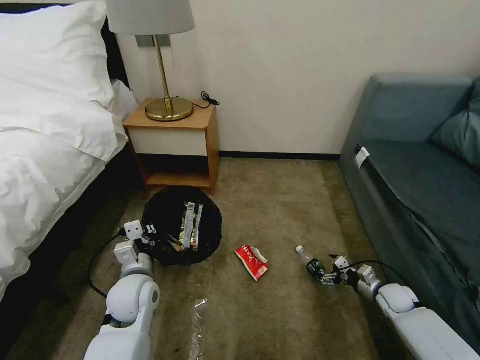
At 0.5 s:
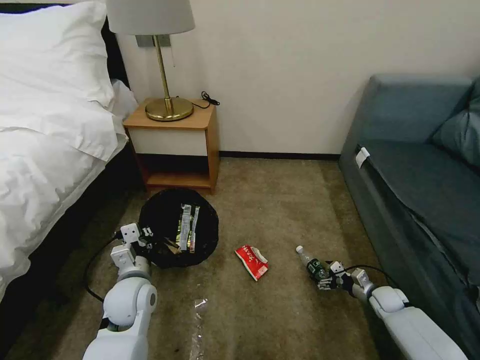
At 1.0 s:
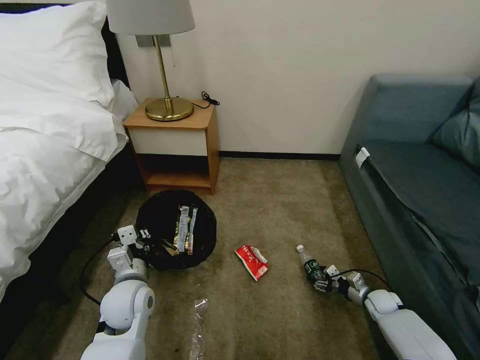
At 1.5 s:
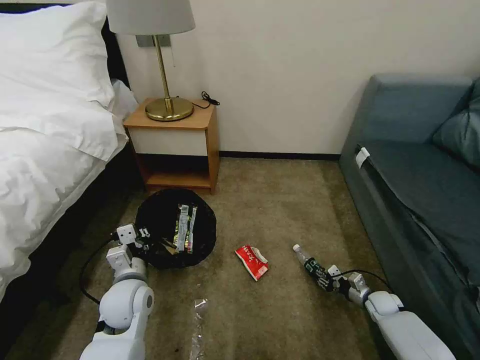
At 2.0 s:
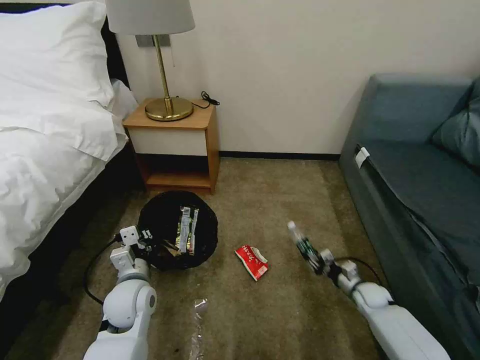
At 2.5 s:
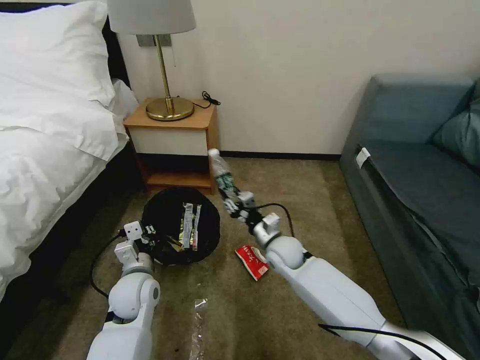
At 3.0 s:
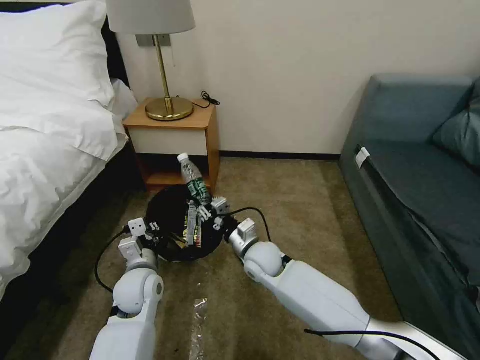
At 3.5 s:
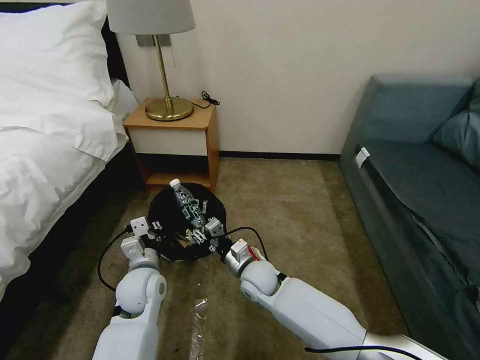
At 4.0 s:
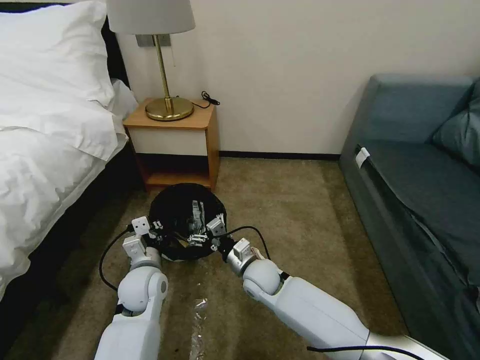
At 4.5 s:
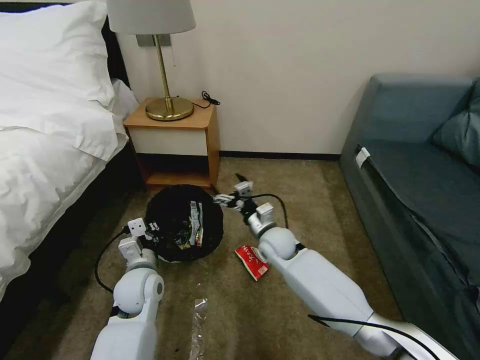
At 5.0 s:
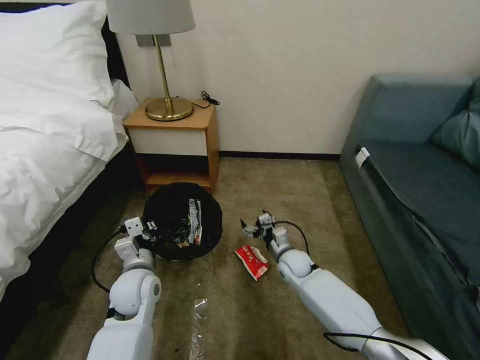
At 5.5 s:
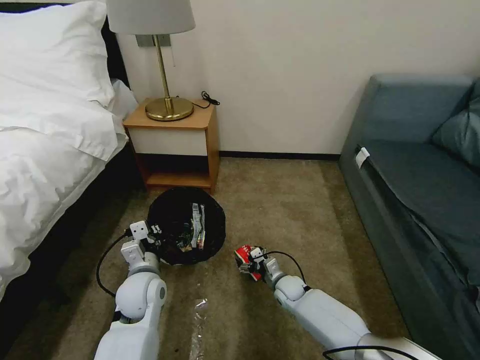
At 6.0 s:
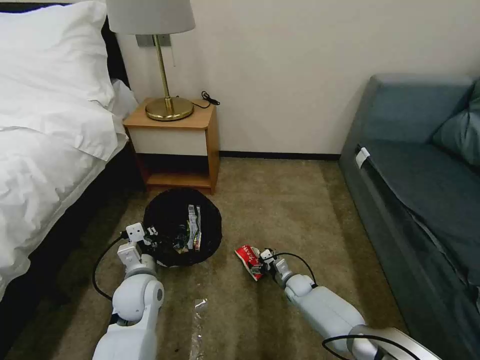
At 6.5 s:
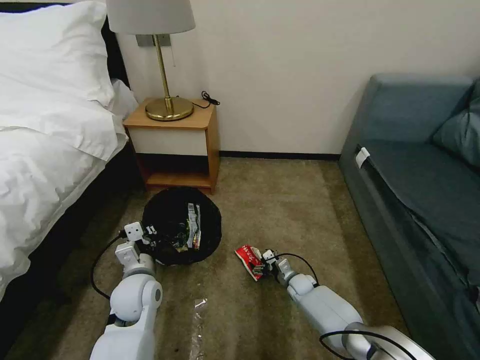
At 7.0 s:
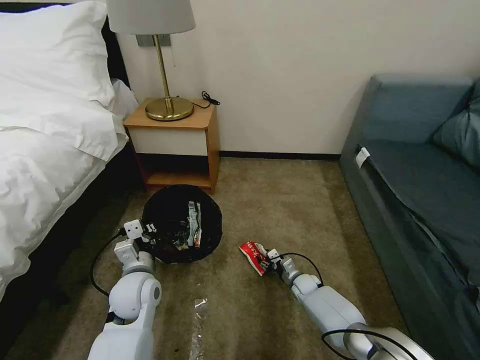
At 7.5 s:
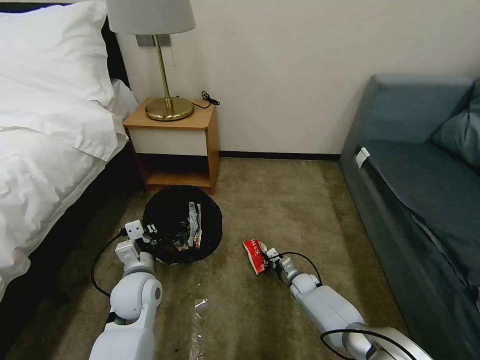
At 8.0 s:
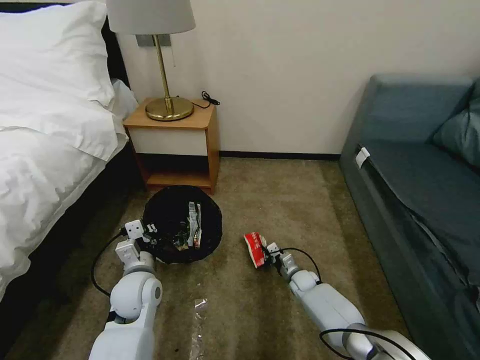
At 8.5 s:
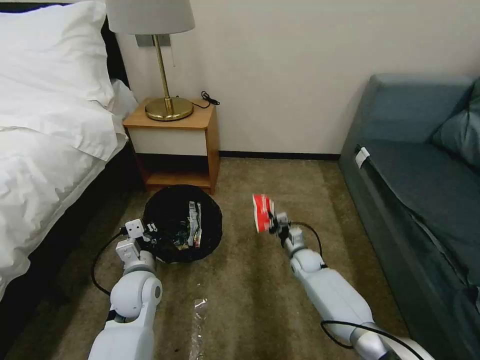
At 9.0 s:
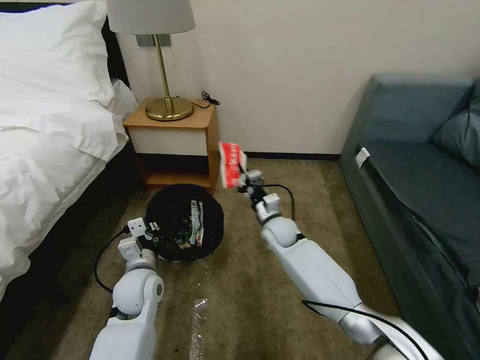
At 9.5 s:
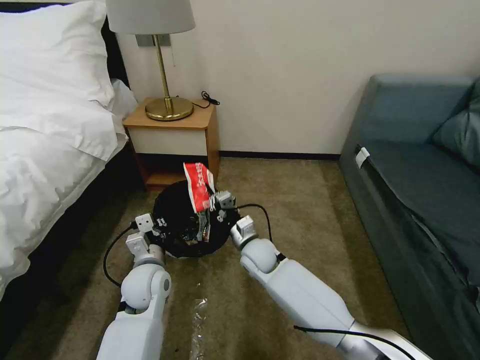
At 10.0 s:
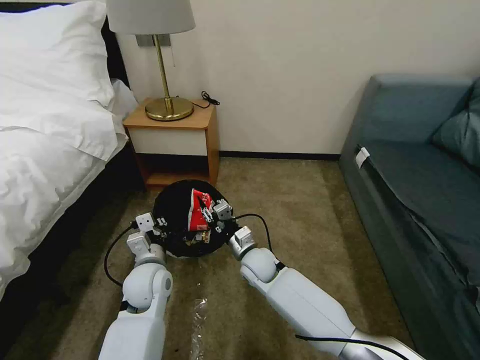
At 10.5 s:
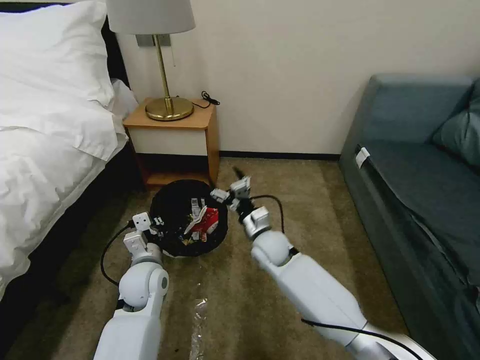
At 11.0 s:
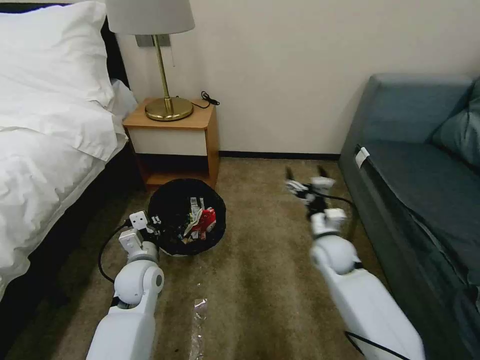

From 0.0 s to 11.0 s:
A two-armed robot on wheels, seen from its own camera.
Task of the whole recording: Pick up the trash bin, then pick up the garbage on the floor and place it into the trash bin.
From 0.0 s to 2.0 s: The right gripper travels to the left by roughly 5 cm, and closes its fingers.
From 2.0 s to 3.5 s: The right gripper shifts roughly 35 cm to the left.
From 3.5 s to 5.5 s: The right gripper heads downward and to the right, covering approximately 20 cm, and opens up.
From 5.5 s to 7.5 s: The right gripper shifts about 5 cm to the right, and closes up.
From 7.5 s to 9.0 s: The right gripper shifts some 25 cm upward and to the left.
From 9.0 s to 11.0 s: The right gripper travels to the right and backward by about 15 cm, and opens.

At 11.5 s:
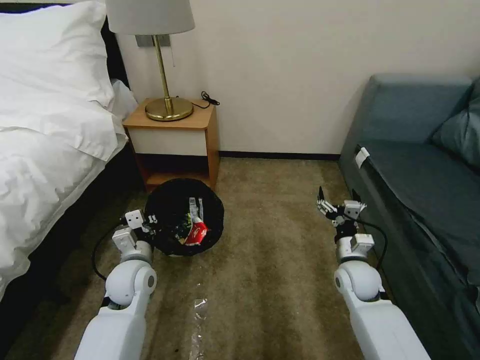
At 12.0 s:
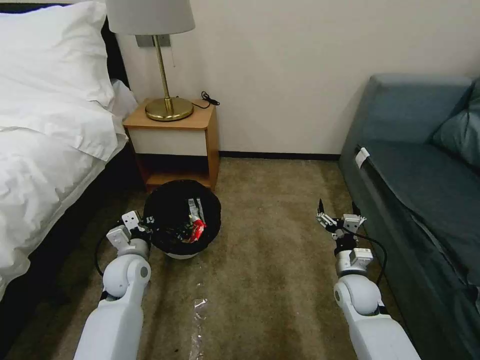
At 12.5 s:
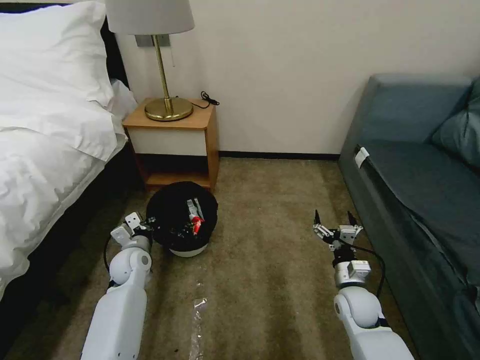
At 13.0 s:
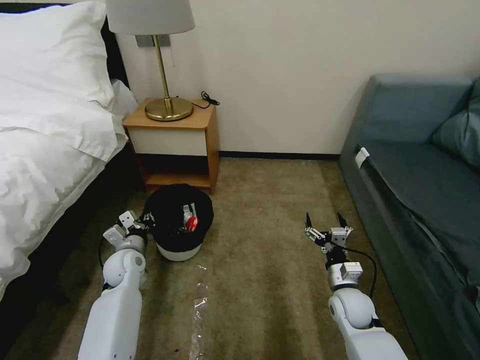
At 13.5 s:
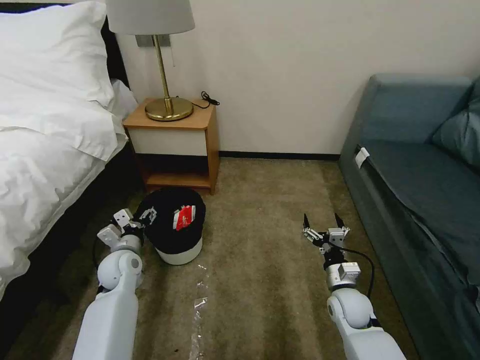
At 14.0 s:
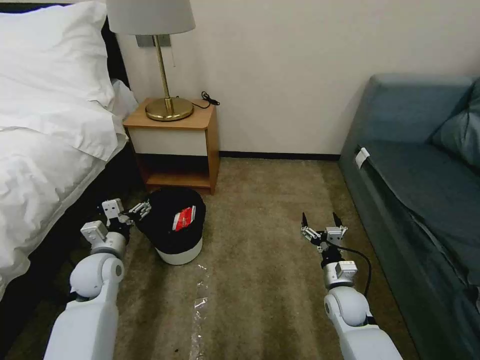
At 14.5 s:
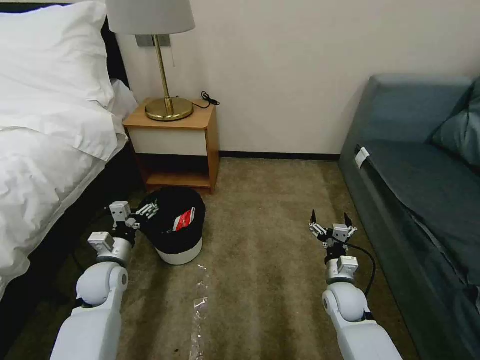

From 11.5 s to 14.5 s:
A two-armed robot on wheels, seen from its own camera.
Task of the whole recording: Pick up the trash bin, then pick up the garbage on the floor and place it into the trash bin.
From 11.5 s to 13.0 s: The right gripper travels downward by roughly 5 cm, while the left gripper is displaced forward, downward and to the left by some 10 cm.
From 13.0 s to 14.5 s: The left gripper goes some 5 cm backward, and opens its fingers.

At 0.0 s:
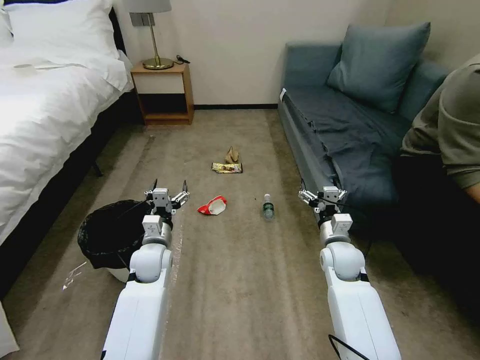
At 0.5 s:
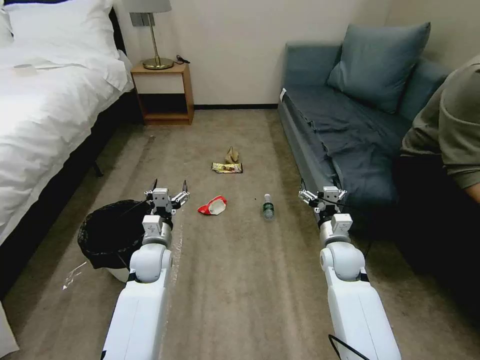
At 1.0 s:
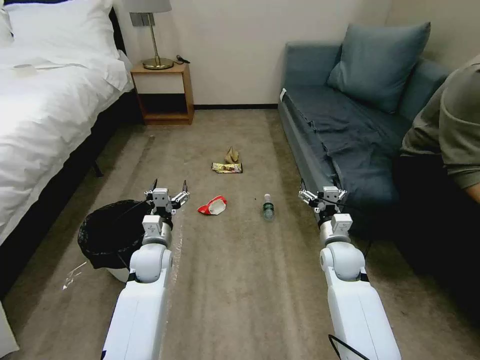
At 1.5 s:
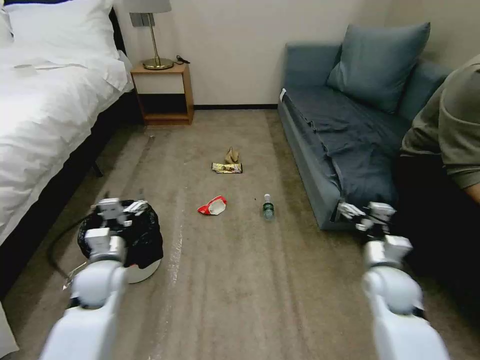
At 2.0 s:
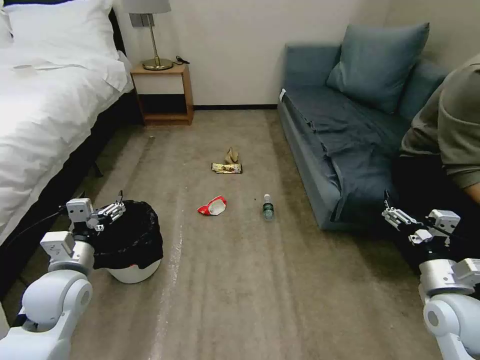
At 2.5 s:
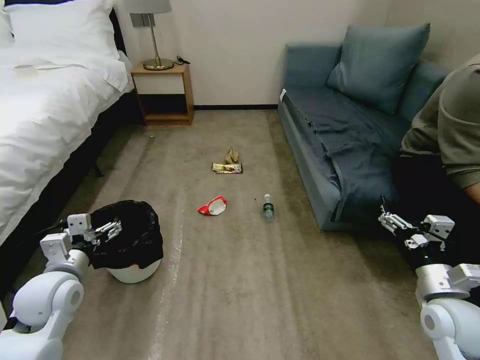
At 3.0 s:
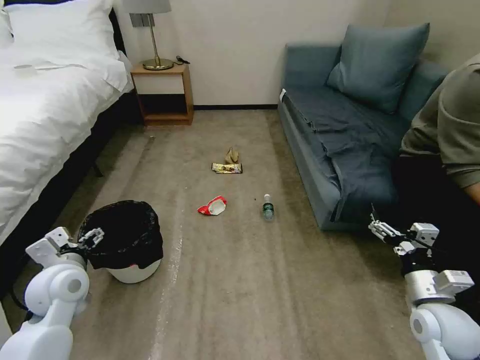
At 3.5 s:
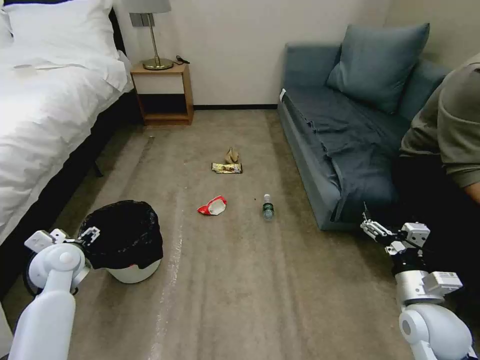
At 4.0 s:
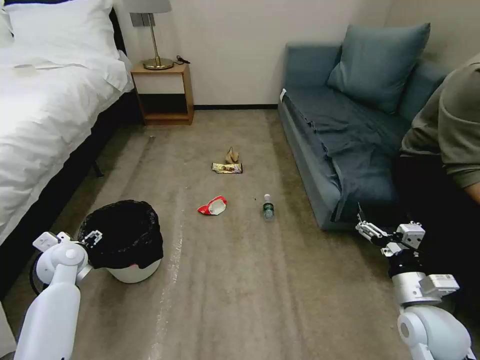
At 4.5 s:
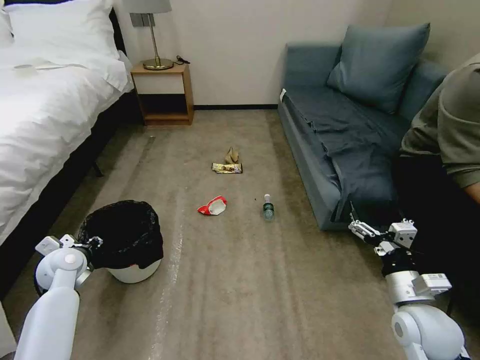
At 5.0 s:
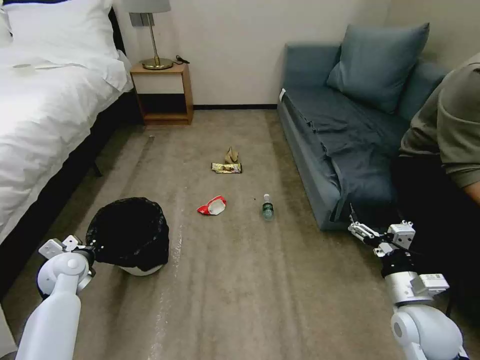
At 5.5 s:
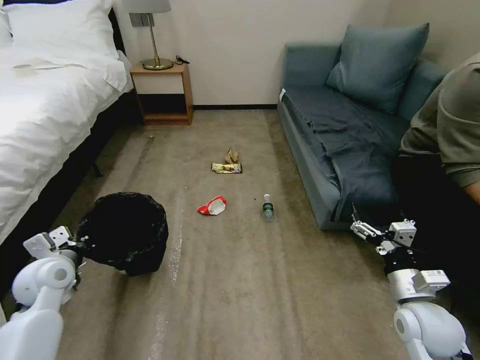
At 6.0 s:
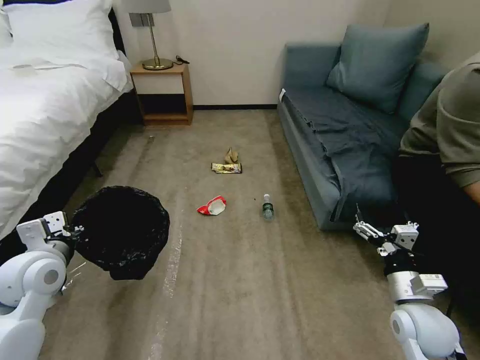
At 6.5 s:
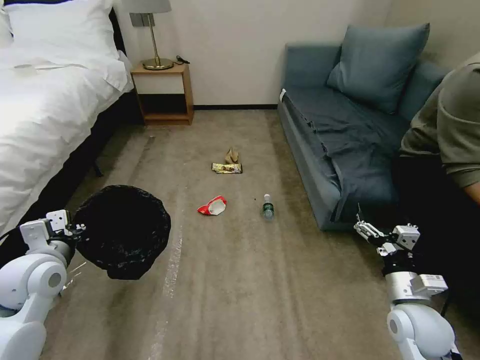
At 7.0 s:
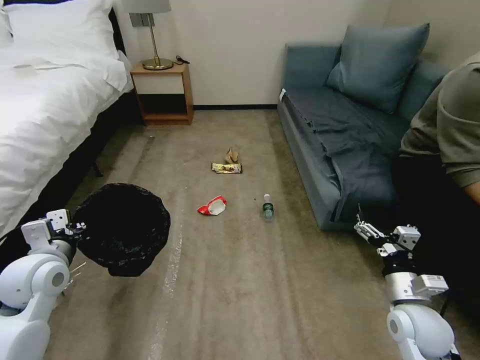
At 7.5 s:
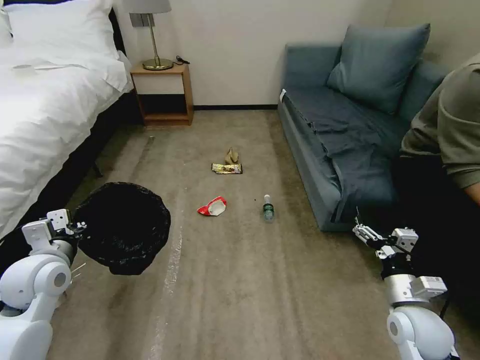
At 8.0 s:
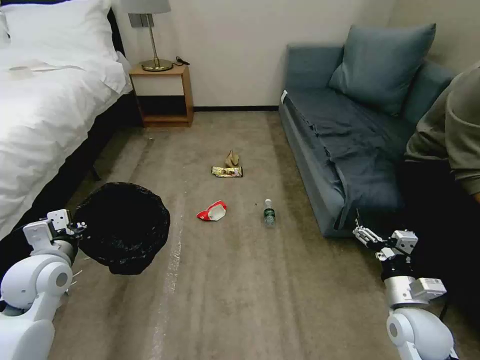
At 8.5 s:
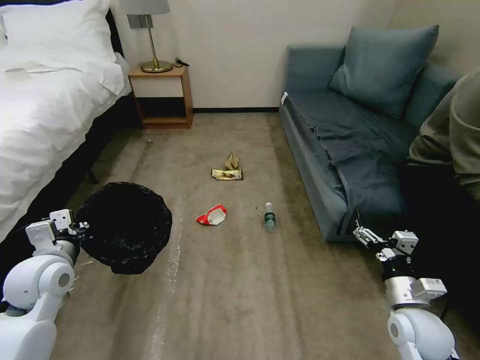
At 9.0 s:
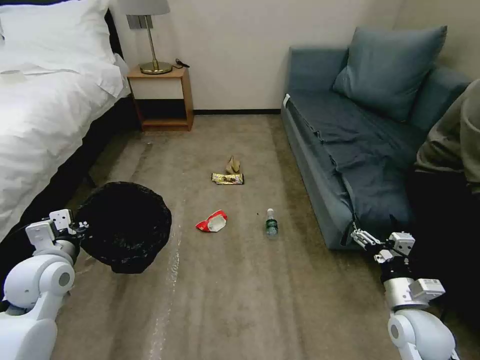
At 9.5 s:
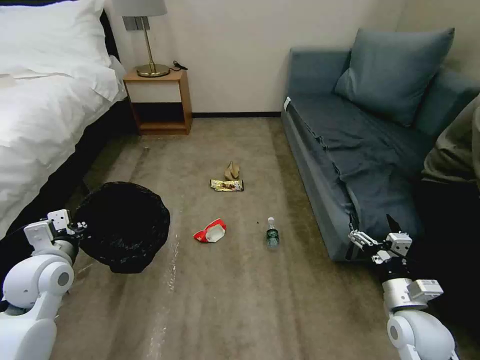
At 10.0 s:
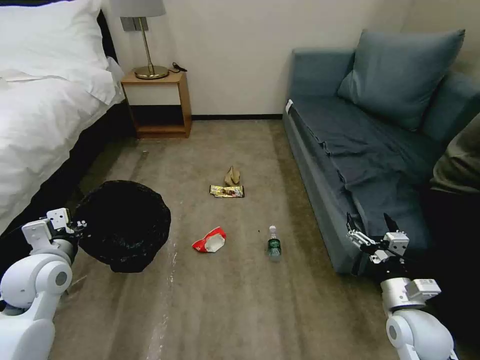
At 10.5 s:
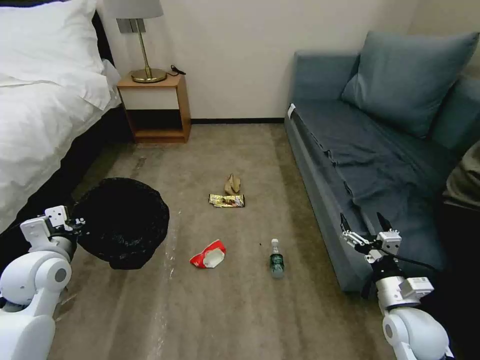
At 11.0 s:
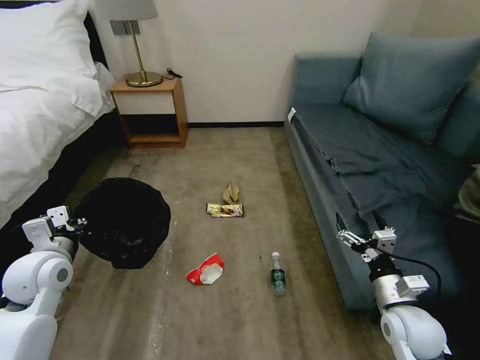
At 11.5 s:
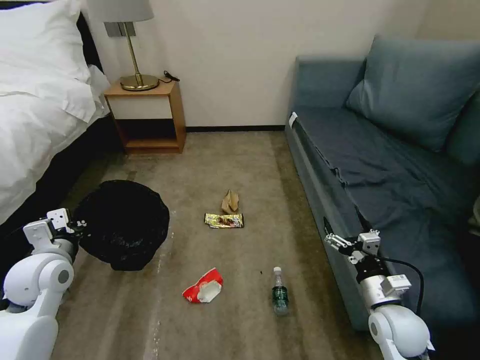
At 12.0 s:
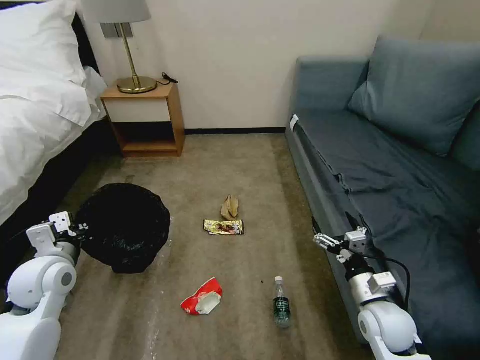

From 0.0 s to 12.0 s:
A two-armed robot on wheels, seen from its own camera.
Task of the whole recording: Pick up the trash bin, then pick up the garbage on the floor and place it into the trash bin.
From 2.0 s to 4.0 s: The right gripper ends up some 5 cm from where it was; the left gripper is displaced forward, to the left and downward by about 15 cm.
From 4.0 s to 6.0 s: The left gripper heads upward and backward, covering approximately 15 cm, and closes its fingers.
From 6.0 s to 8.0 s: The grippers stay close to where they were, moving slightly.
From 10.0 s to 12.0 s: The right gripper moves some 5 cm.
